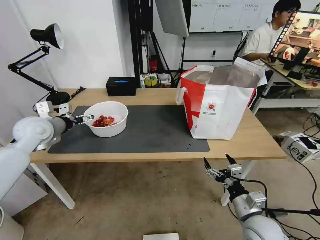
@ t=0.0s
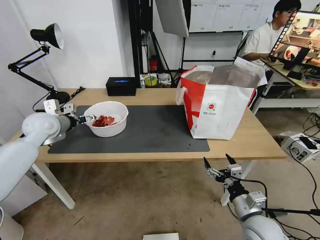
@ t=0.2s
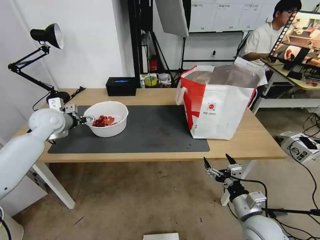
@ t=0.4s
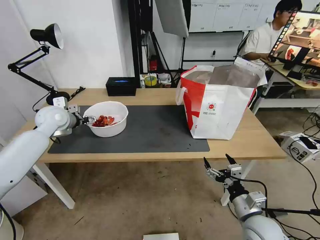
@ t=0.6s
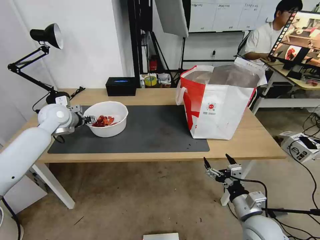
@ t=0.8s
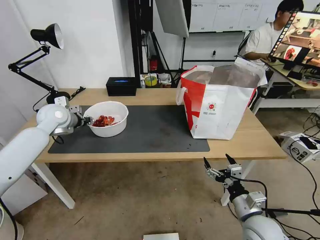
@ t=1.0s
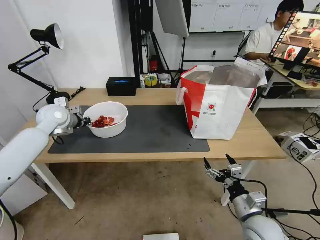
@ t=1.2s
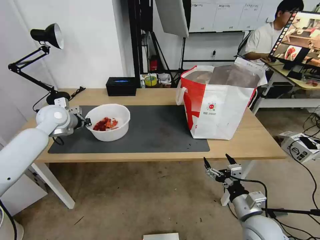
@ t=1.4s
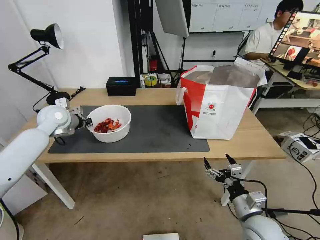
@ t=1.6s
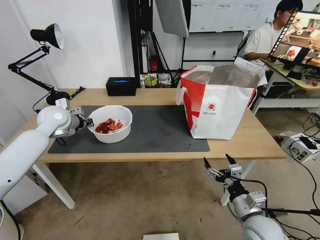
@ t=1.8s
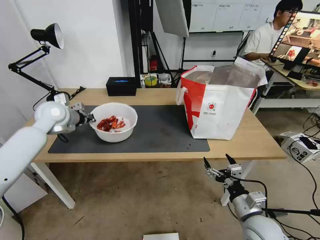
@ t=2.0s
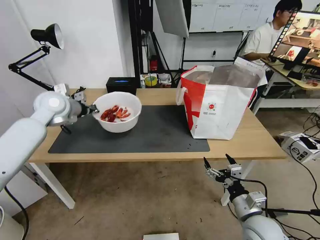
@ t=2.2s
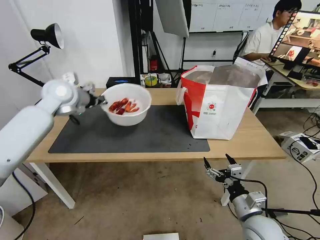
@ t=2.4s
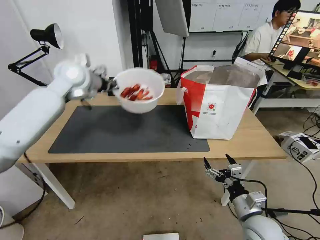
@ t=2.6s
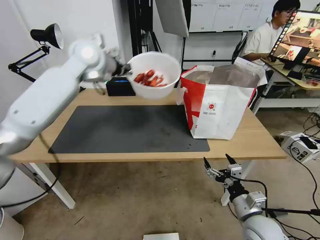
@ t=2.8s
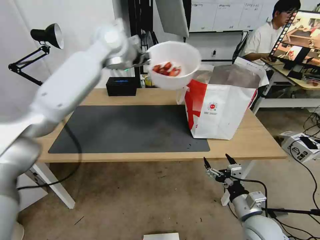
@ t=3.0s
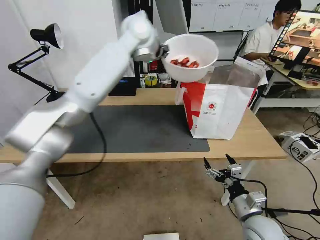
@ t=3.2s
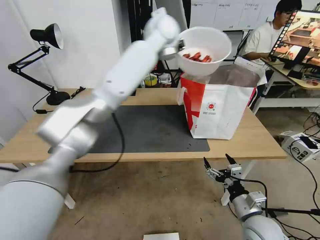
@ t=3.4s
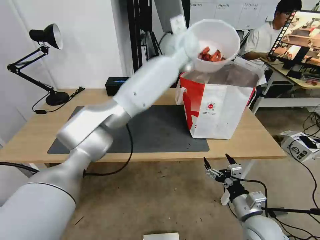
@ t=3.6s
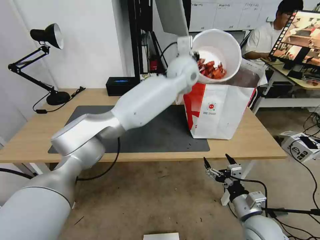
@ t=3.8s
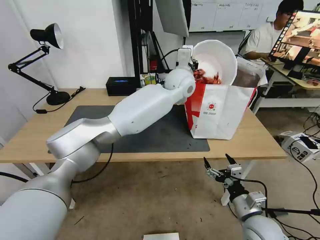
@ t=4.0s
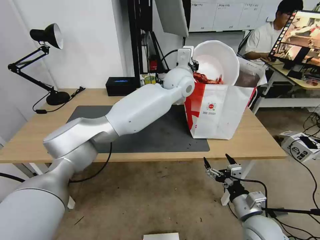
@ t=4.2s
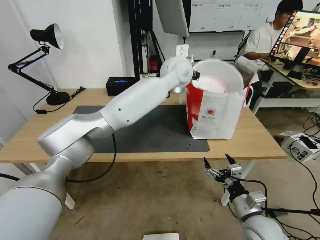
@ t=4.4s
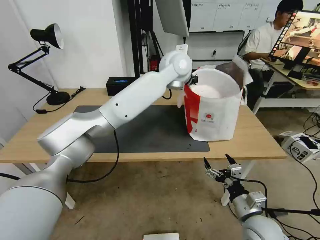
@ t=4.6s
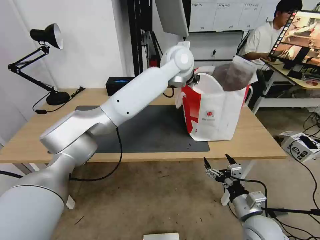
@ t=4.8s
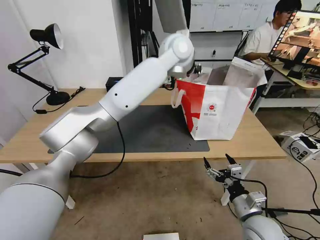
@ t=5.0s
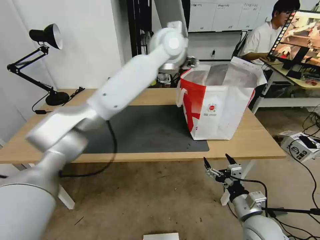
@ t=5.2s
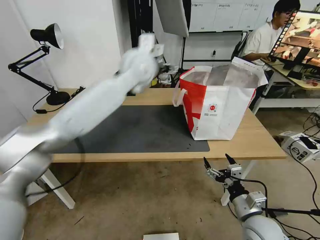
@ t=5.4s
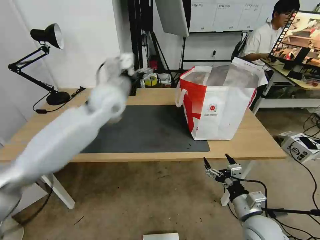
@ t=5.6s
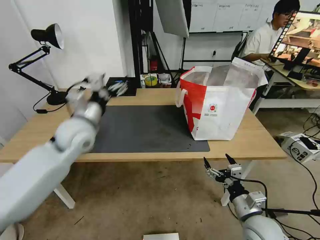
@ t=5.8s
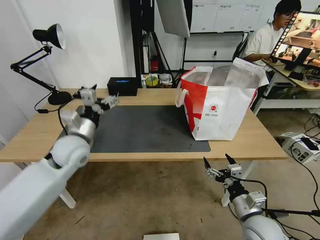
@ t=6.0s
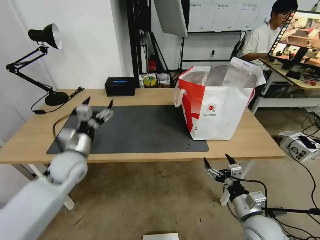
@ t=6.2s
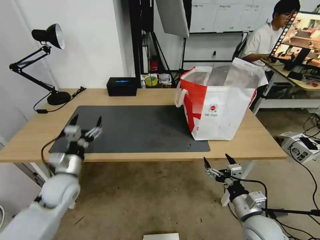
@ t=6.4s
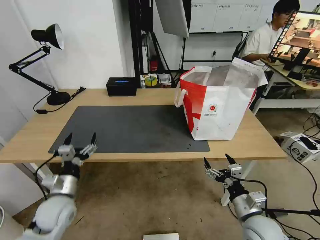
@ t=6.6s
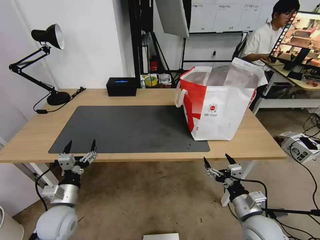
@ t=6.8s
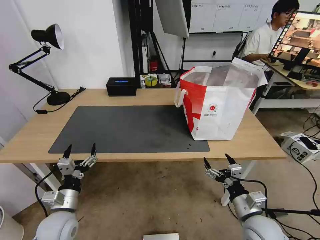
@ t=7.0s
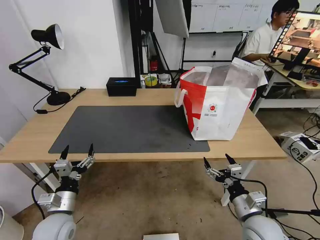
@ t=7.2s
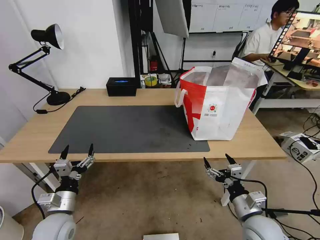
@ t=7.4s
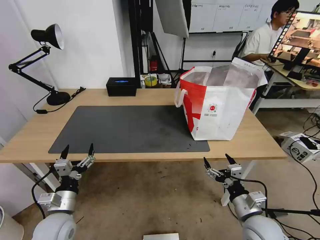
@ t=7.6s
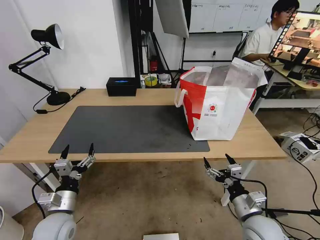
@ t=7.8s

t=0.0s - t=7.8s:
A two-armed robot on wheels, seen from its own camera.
Task of the whole recording: Pick up the trash from the table and place it into the takeout bag.
t=0.0s - t=1.6s: The left gripper moves forward, some 5 cm, and closes up.
t=1.6s - t=3.2s: The left gripper shifts roughly 35 cm to the right and upward.
t=3.2s - t=4.6s: The left gripper goes approximately 15 cm to the right and downward.
t=4.6s - t=6.2s: The left gripper is displaced to the left, downward and backward by about 50 cm, and opens up.
t=6.2s - t=7.8s: The left gripper moves backward and downward, roughly 15 cm.
